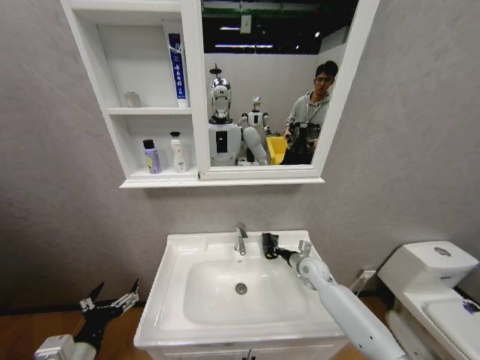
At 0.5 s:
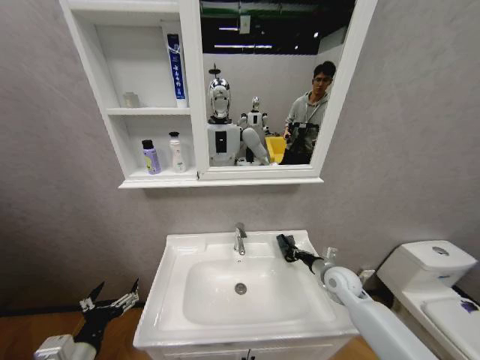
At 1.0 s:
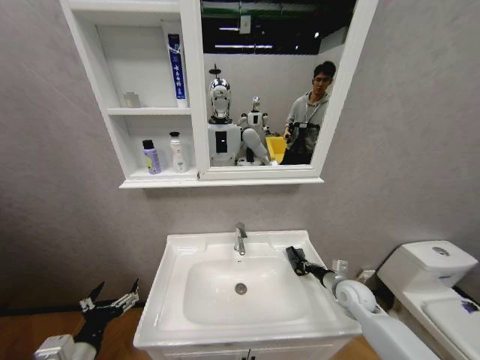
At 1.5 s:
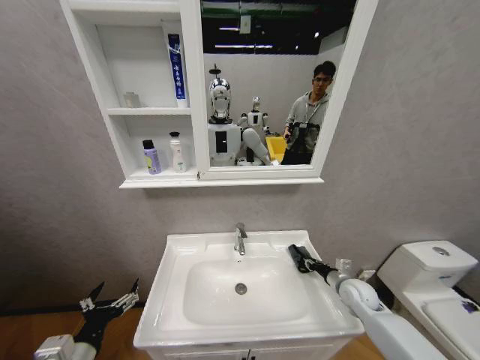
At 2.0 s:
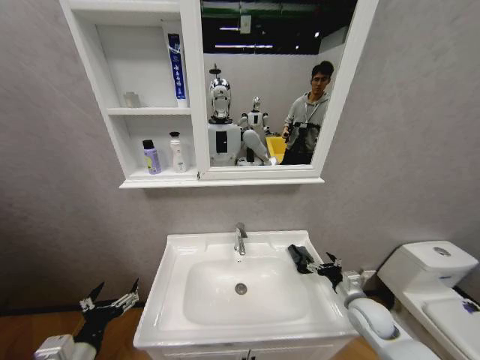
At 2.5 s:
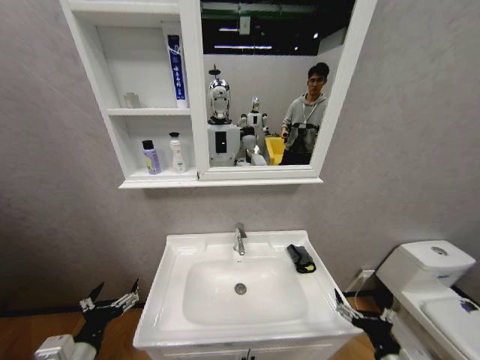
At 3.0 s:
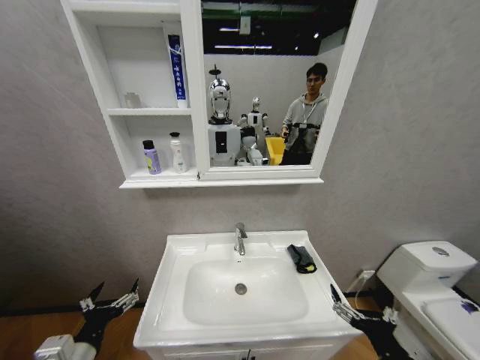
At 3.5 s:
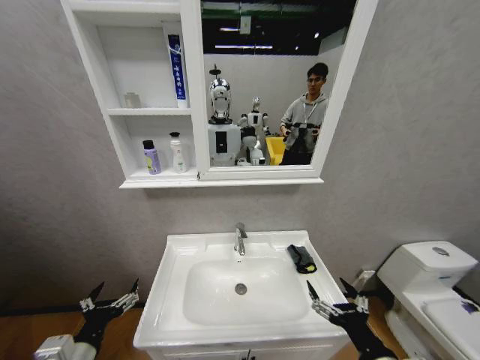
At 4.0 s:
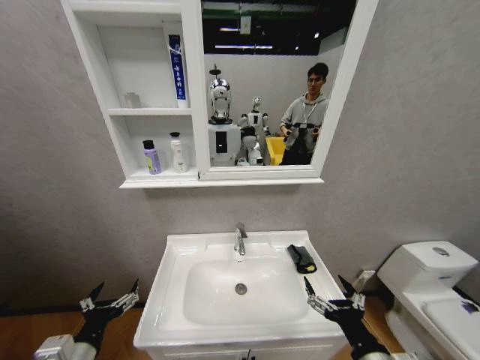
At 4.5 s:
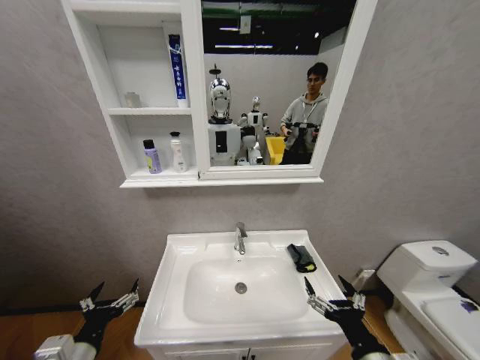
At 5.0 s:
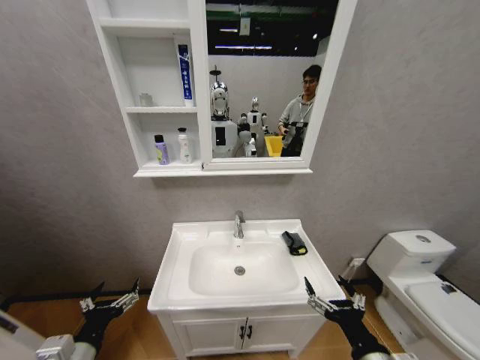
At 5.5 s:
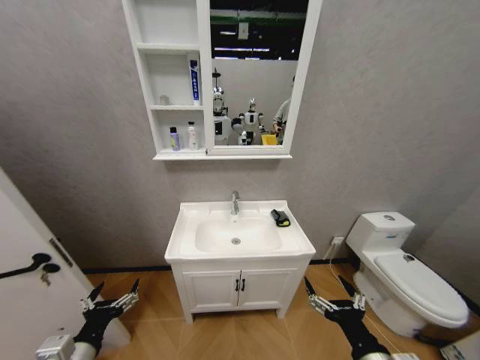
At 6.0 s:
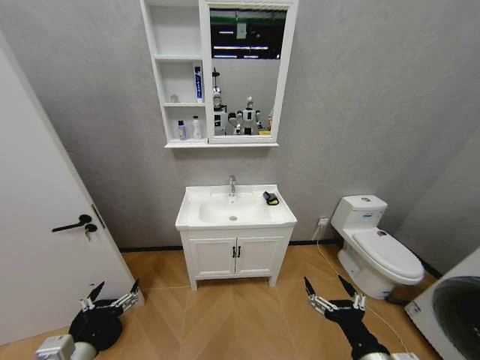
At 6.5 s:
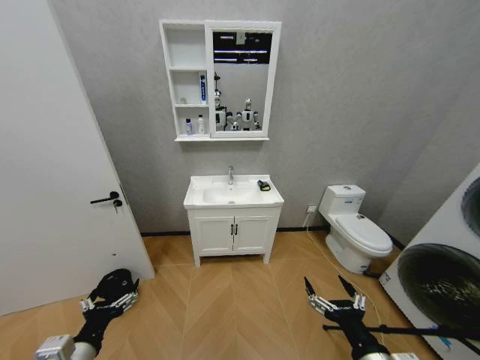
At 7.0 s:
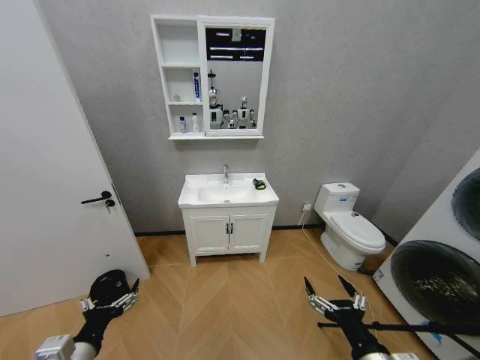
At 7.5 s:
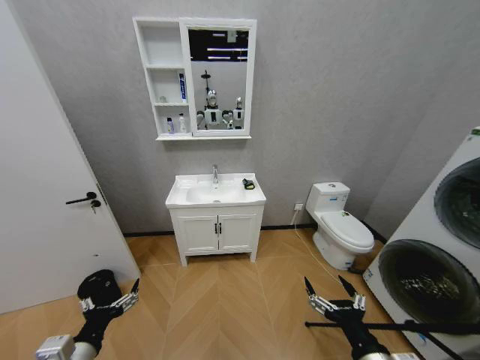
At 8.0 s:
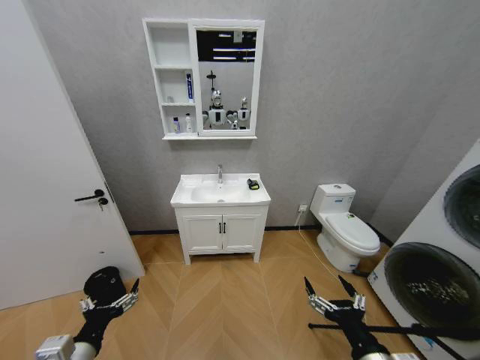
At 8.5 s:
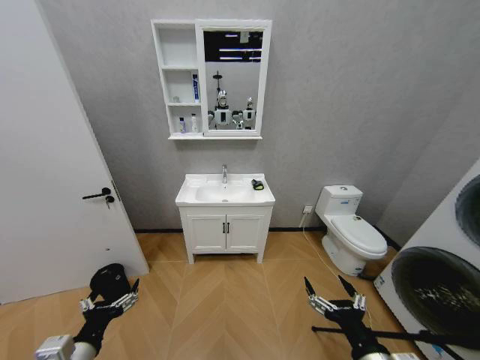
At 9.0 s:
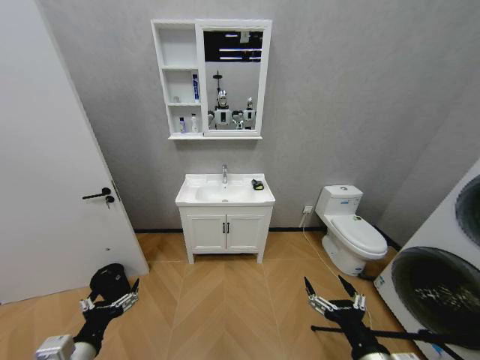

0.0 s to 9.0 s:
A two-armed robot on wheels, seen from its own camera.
Task of the whole recording: Move facial cleanser and shampoo from washbasin to cabinet, then wipe washbasin with towel.
0.0 to 2.0 s: The right gripper goes roughly 15 cm backward and to the right, and opens its fingers.
2.0 to 4.5 s: The right gripper goes about 25 cm backward, to the left and upward.
7.0 to 9.0 s: Both grippers stay about where they are.
